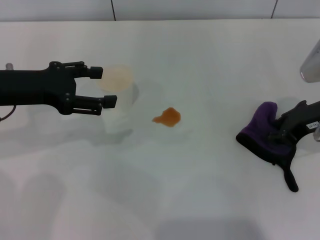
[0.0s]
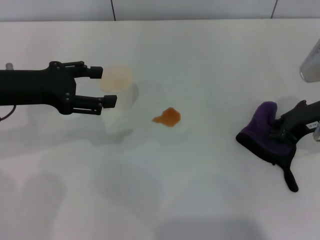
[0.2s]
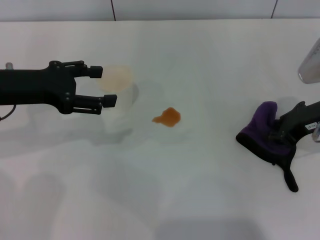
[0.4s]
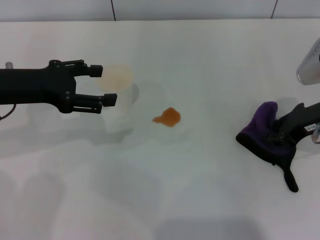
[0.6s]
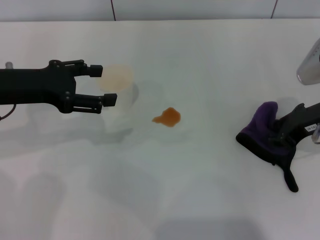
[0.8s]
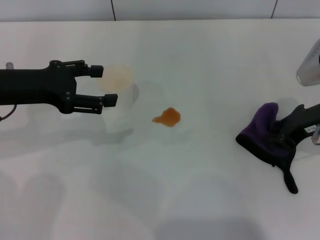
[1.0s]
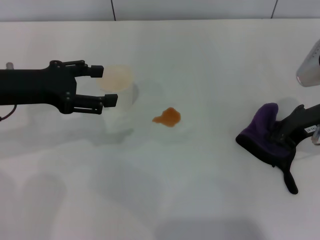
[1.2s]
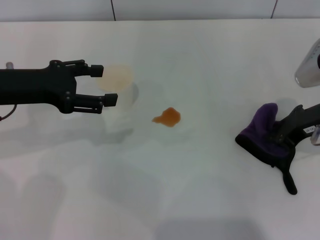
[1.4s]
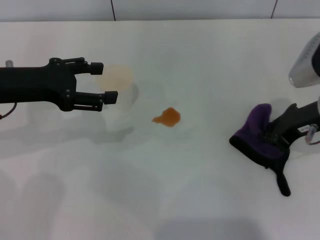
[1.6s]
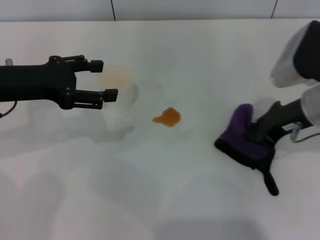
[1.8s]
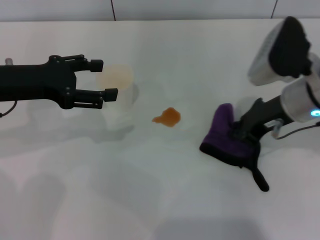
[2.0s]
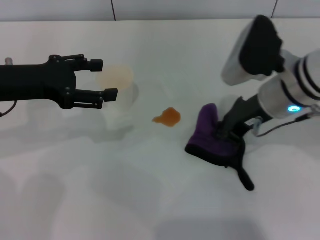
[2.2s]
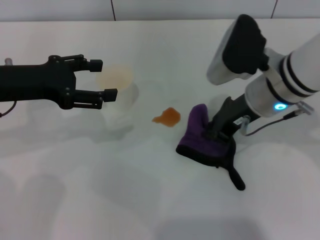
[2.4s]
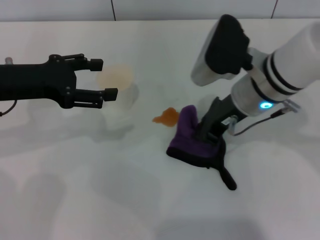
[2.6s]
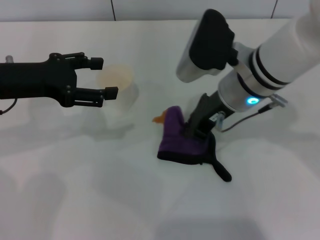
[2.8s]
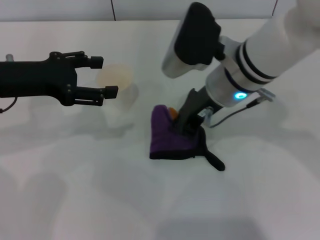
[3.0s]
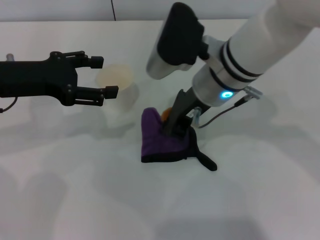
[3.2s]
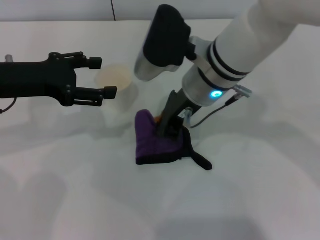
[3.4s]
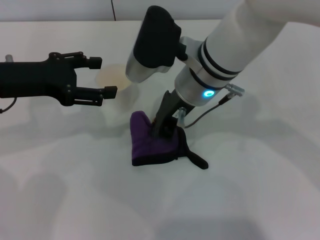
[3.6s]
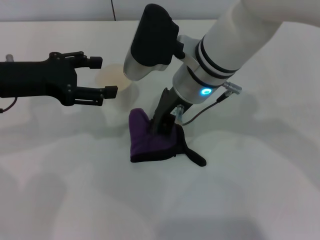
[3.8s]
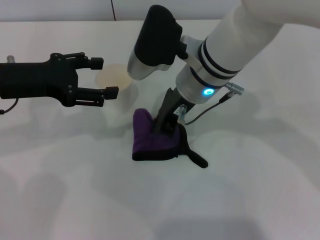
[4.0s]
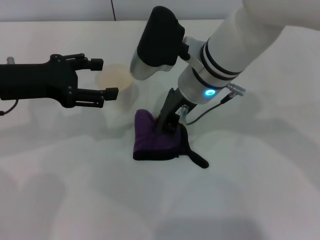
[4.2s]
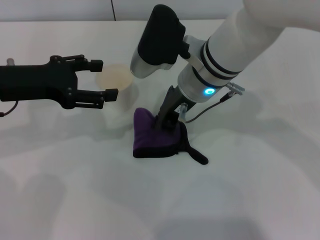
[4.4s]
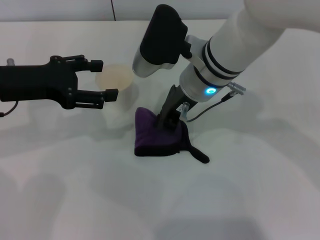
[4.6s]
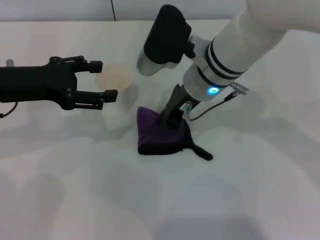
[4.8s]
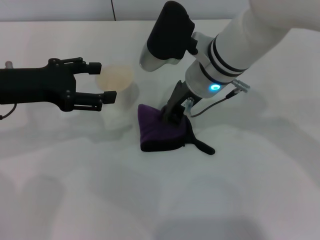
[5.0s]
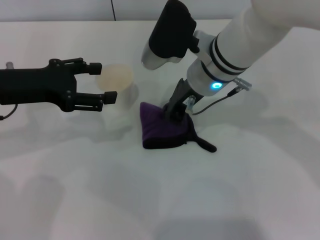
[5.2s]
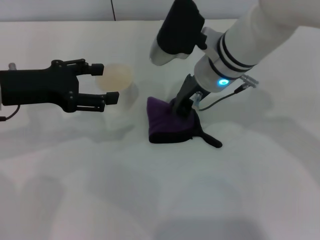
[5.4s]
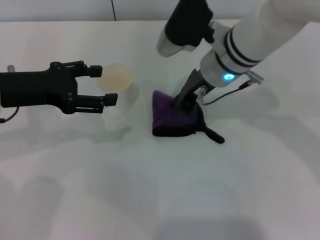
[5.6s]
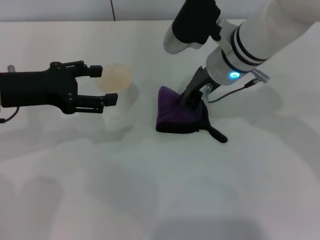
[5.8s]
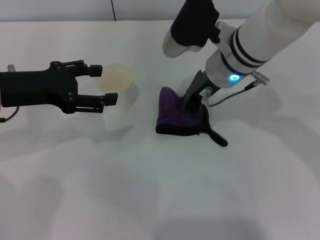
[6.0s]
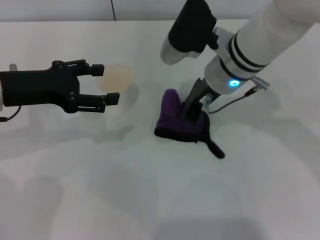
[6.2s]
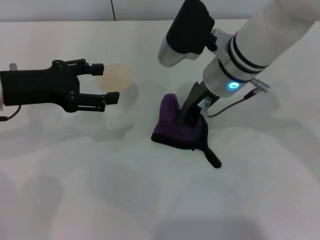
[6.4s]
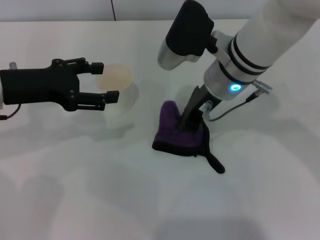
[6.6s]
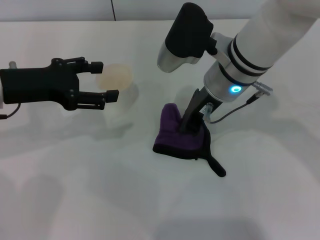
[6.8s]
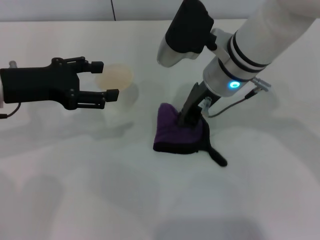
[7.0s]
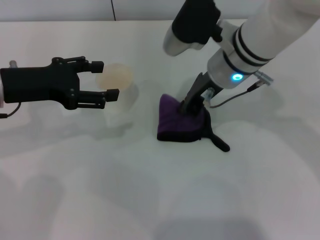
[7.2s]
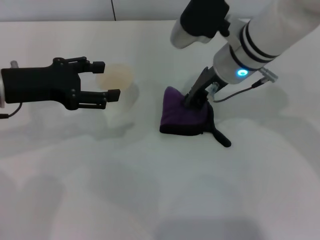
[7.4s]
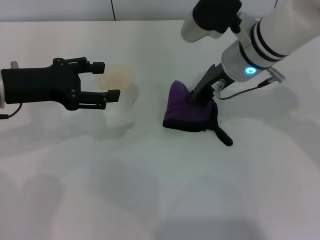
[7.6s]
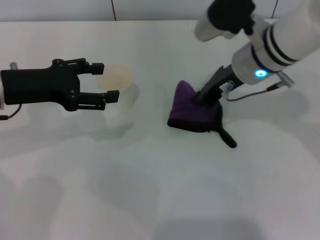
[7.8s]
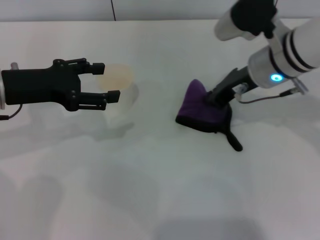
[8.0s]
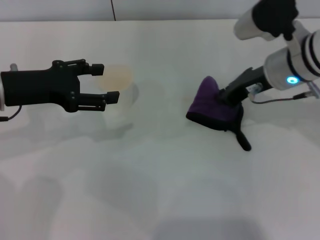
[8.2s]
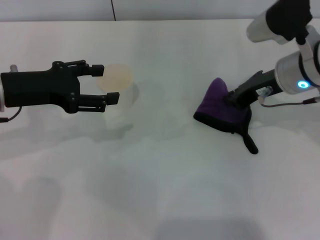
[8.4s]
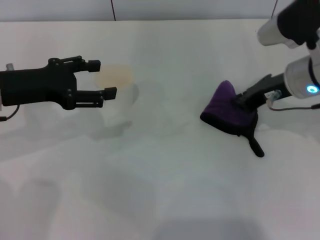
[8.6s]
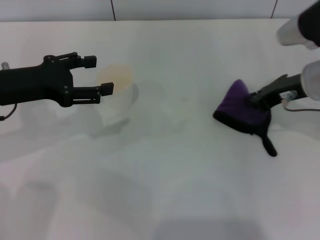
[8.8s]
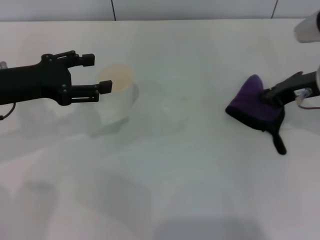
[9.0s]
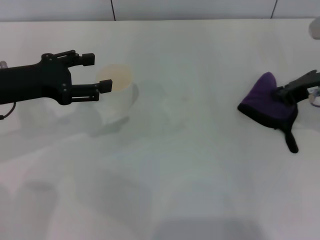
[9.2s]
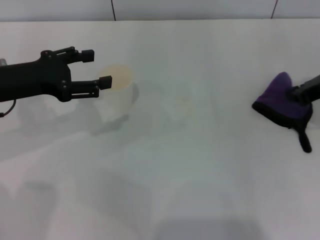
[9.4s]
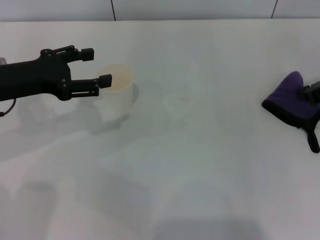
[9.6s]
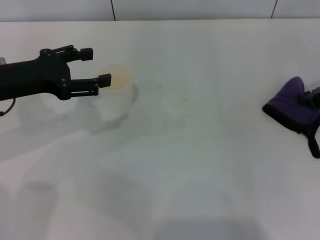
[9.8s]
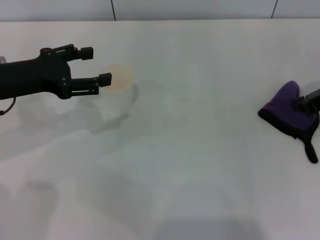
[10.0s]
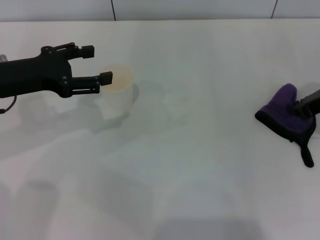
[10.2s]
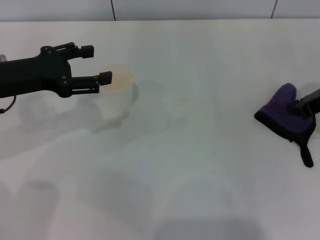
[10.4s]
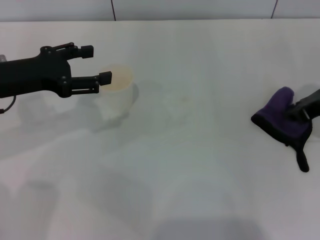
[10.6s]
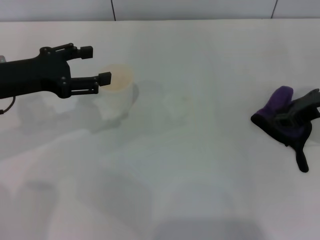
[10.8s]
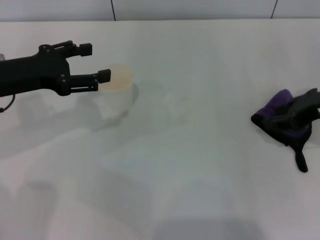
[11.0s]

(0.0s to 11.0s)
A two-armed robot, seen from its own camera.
Step, 1.2s - 7.4s: Wipe the stains off the table with the right gripper.
0.0s - 1.6s: The right gripper closes up.
1.6s - 3.2s: The right gripper travels to the left by about 15 cm.
3.2s - 6.2s: The grippers make only small movements.
6.2s - 7.8s: The grippers stay close to where they were, moving slightly.
7.8s - 9.4s: The right gripper moves to the right, about 15 cm.
9.4s - 11.0s: The grippers move only a little.

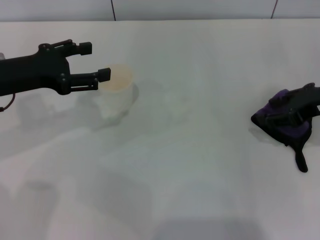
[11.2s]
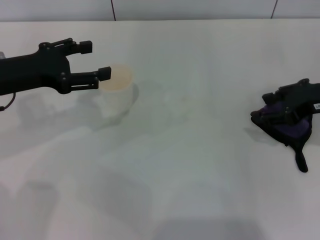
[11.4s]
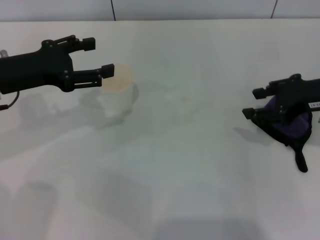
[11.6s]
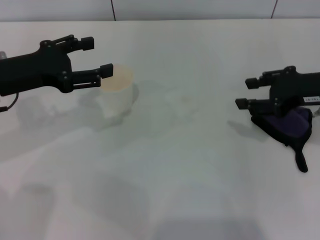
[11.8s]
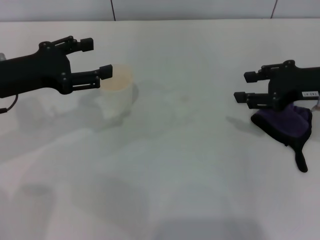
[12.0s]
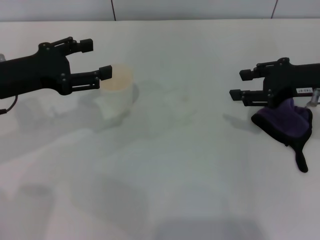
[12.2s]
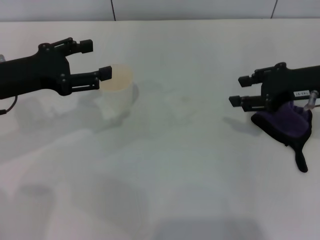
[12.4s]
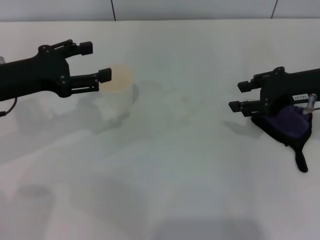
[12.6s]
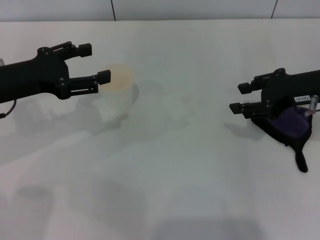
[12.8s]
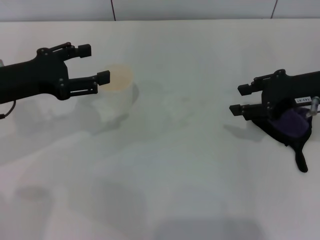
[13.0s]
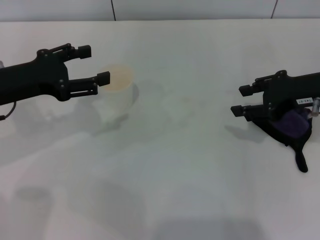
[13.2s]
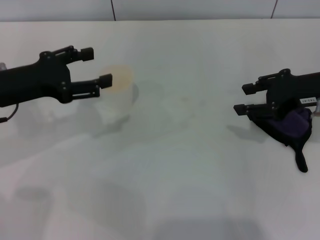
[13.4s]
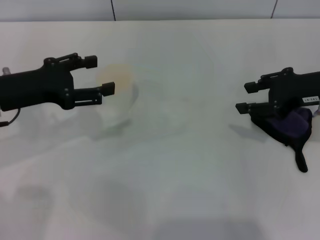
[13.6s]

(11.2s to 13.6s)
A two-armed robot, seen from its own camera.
12.4s - 13.6s: Both grippers stay put.
